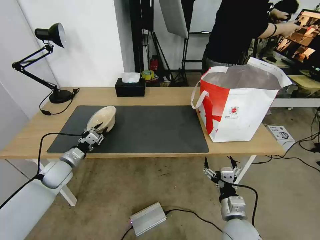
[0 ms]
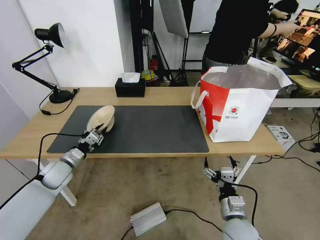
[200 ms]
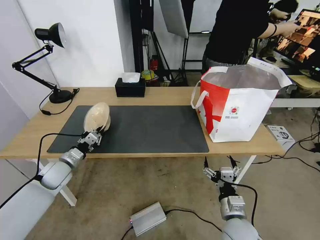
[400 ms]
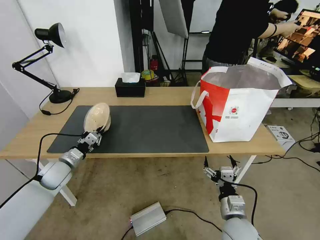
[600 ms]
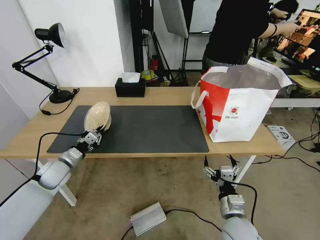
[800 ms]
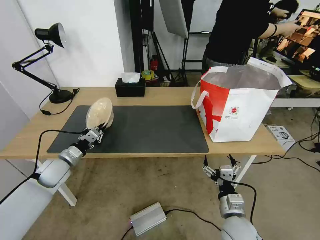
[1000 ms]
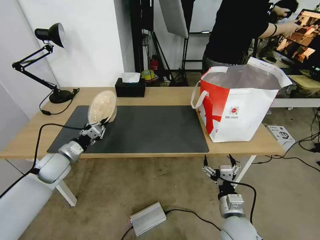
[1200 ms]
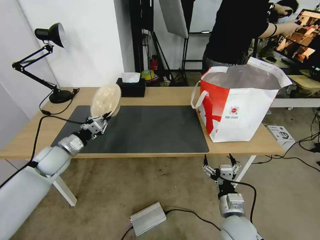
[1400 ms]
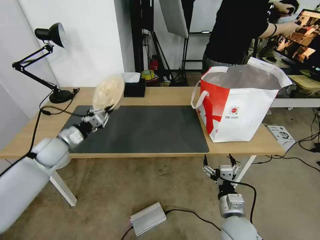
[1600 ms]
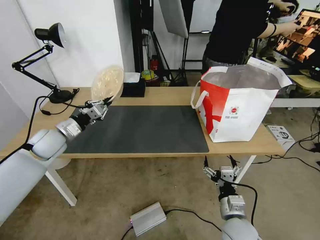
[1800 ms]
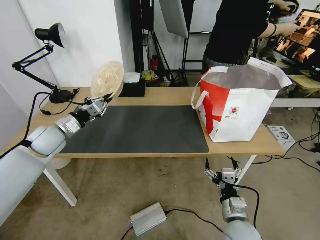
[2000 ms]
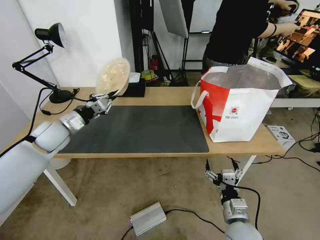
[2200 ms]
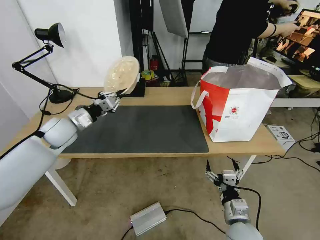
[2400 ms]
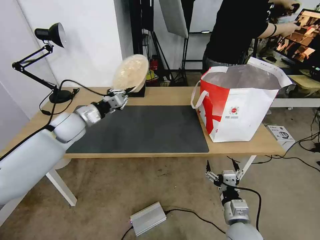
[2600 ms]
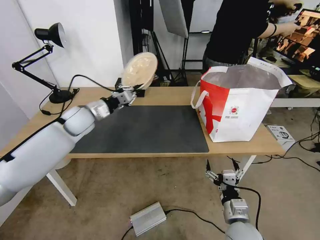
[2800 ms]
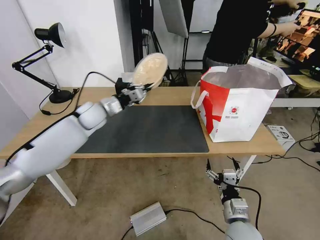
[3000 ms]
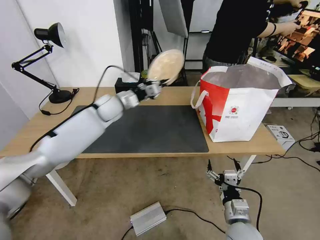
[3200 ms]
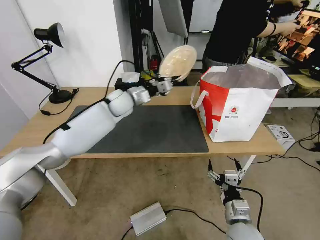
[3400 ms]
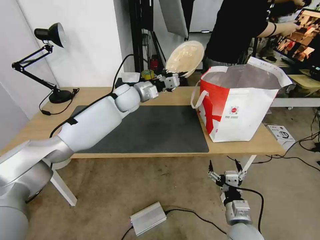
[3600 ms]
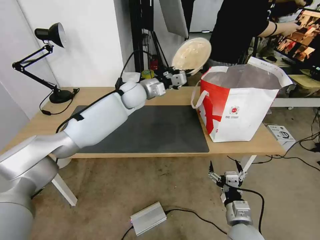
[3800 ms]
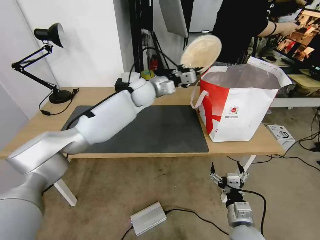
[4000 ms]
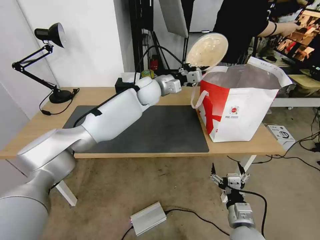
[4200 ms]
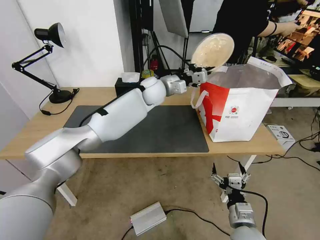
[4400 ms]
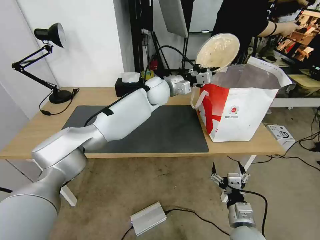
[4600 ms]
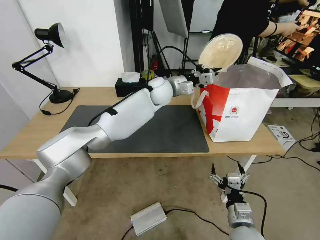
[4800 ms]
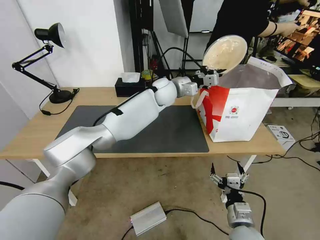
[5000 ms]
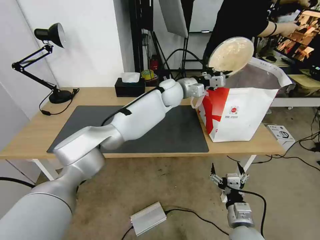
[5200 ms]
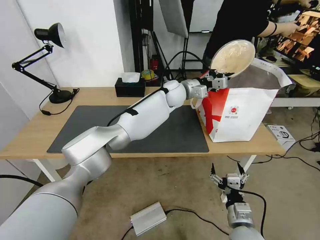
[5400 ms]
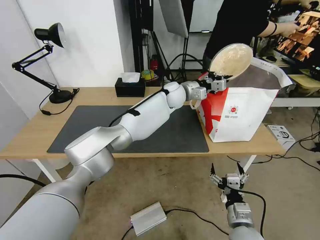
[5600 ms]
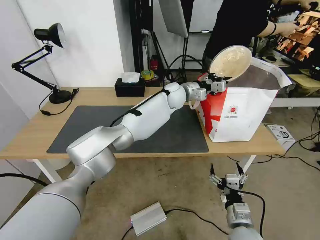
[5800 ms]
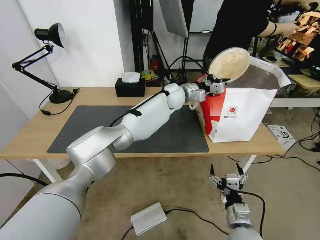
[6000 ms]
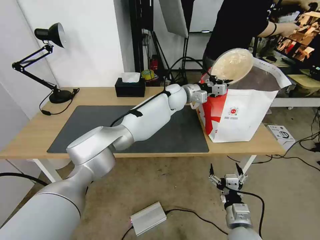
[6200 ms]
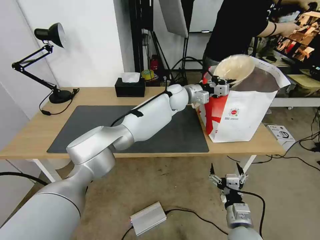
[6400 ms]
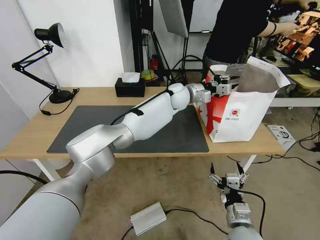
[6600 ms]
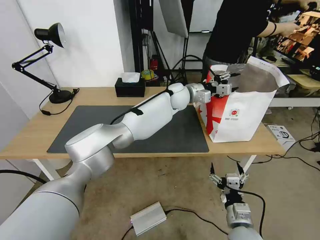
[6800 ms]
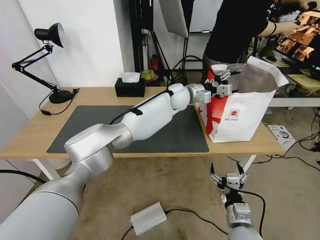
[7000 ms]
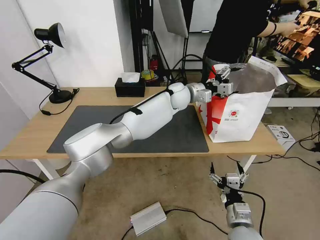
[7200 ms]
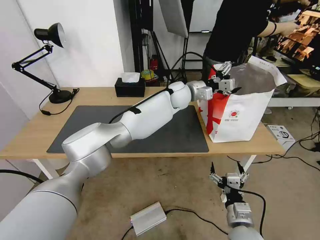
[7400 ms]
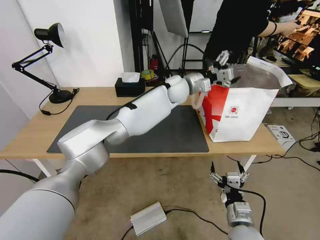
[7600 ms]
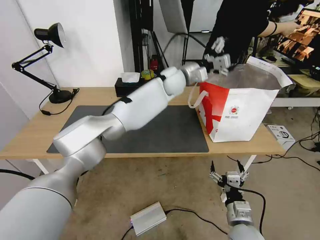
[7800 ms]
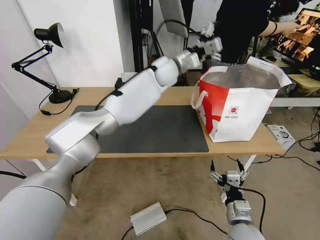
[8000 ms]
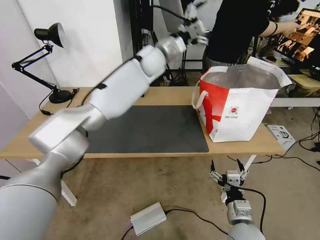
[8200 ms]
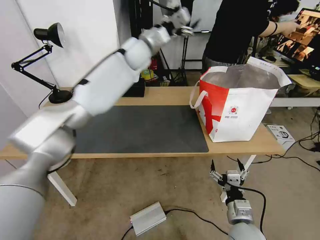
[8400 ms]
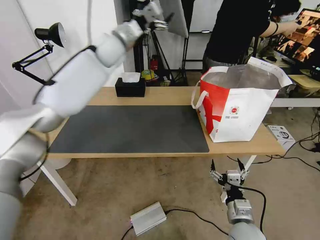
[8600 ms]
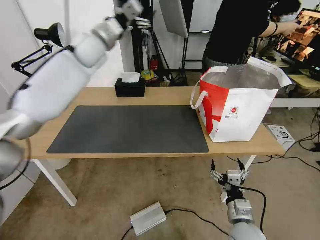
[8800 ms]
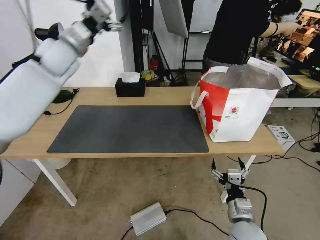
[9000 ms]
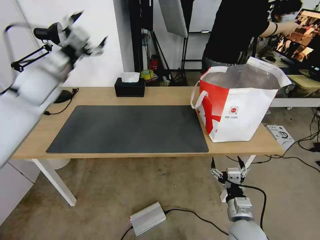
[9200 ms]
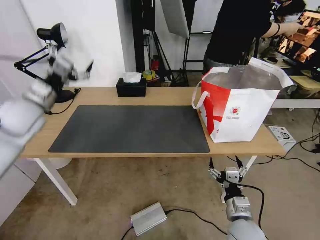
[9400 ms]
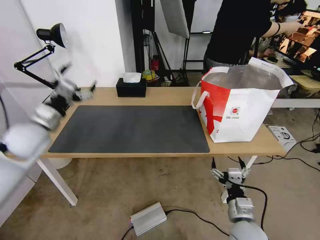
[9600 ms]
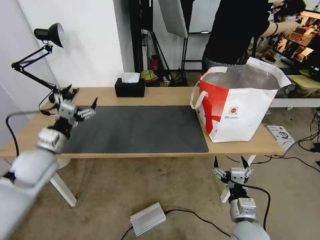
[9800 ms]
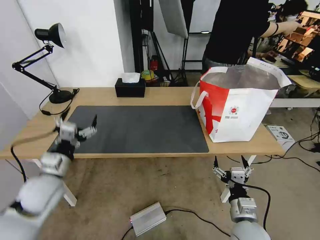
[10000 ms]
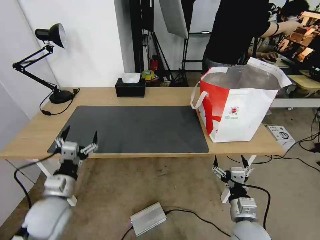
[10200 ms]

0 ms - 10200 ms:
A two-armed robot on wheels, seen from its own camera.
Task of the whole recording: Pick up the trash from the table and place it into the takeout bag.
0 ms - 1400 ms: The left gripper shifts about 5 cm upward.
1400 ms - 3000 ms: The left gripper travels forward, to the right and upward by some 20 cm.
3000 ms - 4400 ms: The left gripper travels to the right by about 20 cm.
4400 ms - 5800 ms: The left gripper shifts approximately 10 cm to the right.
5800 ms - 7200 ms: The left gripper opens up.
7200 ms - 8800 ms: The left gripper travels to the left and upward by roughly 35 cm.
8800 ms - 10200 ms: The left gripper shifts approximately 50 cm backward and downward.

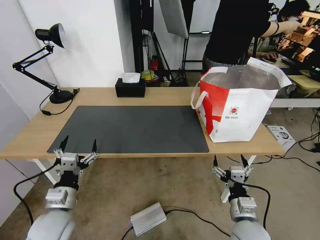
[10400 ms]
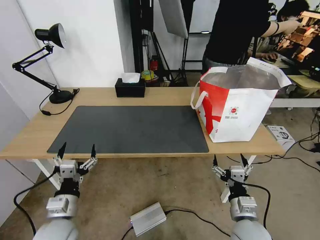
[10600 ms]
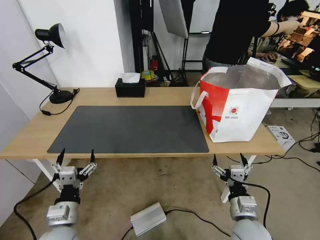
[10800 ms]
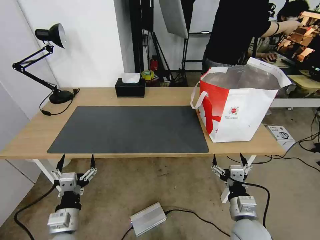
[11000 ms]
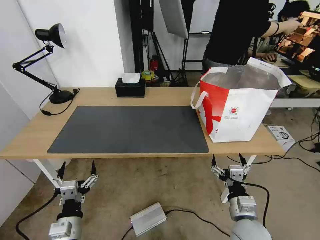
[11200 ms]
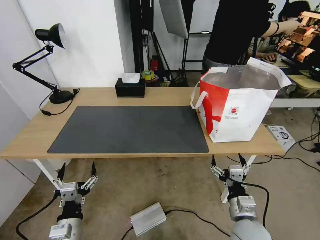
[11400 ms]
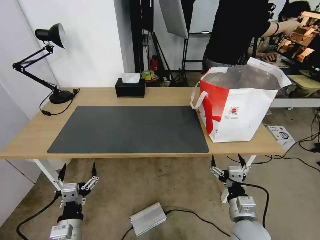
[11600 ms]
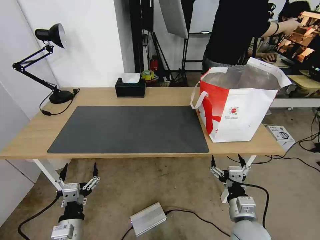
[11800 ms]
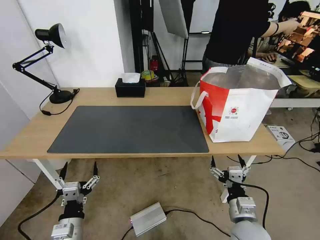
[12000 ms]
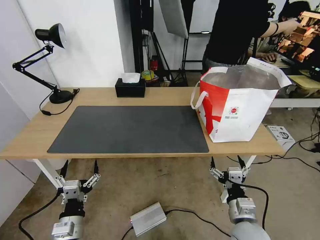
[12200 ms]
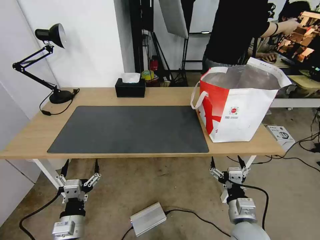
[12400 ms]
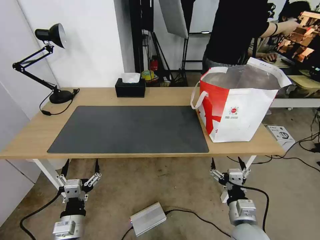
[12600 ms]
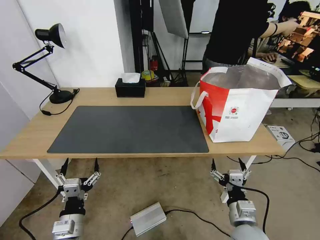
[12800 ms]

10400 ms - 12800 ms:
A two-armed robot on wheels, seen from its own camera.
Task of the whole recording: Pick up the trash from the table and place it into the takeout bag.
10400 ms - 11600 ms: The left gripper moves backward and downward, about 10 cm.
11600 ms - 12800 ms: The two grippers keep their place.

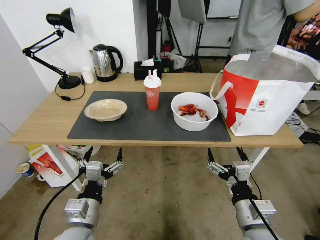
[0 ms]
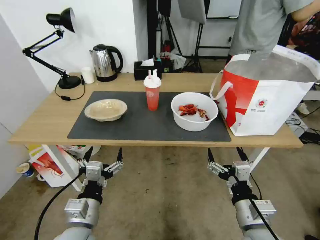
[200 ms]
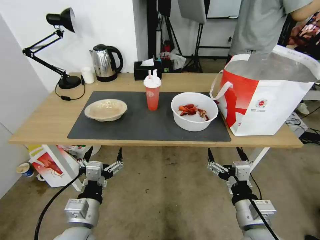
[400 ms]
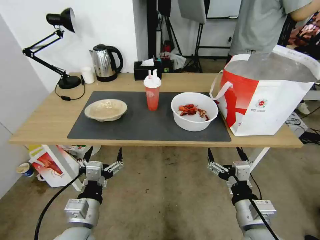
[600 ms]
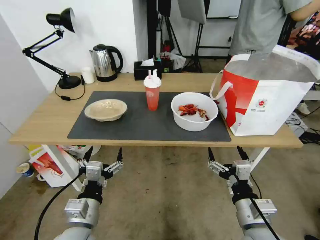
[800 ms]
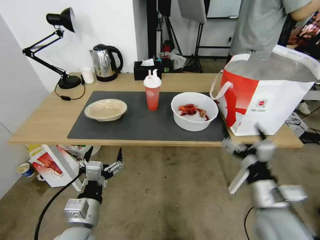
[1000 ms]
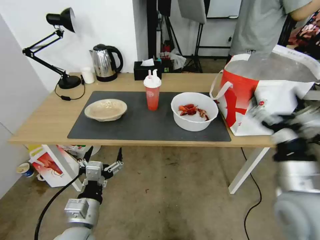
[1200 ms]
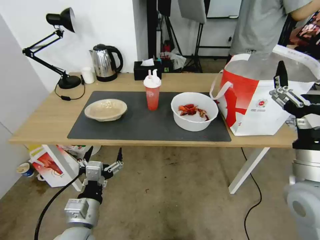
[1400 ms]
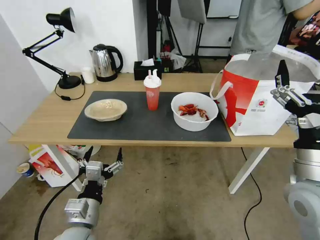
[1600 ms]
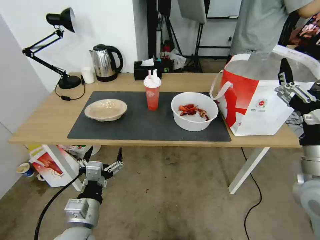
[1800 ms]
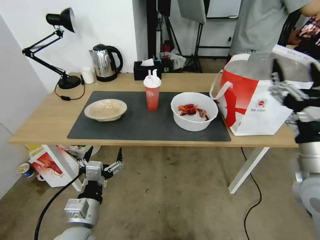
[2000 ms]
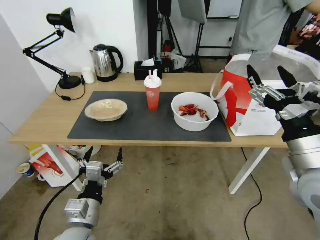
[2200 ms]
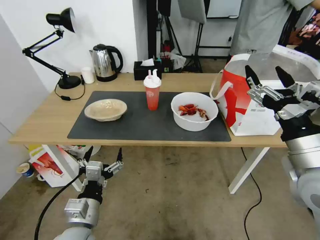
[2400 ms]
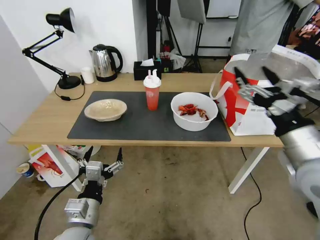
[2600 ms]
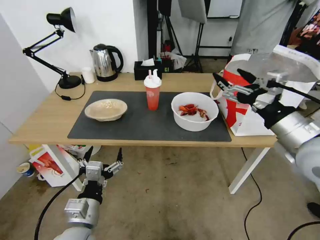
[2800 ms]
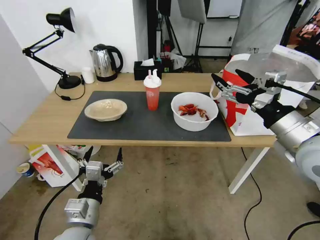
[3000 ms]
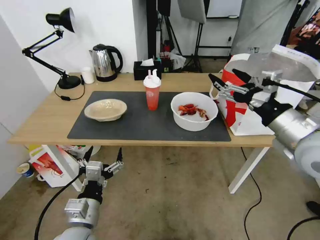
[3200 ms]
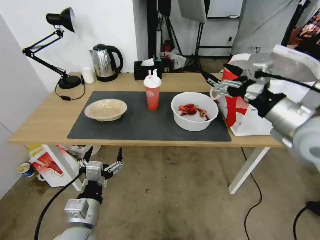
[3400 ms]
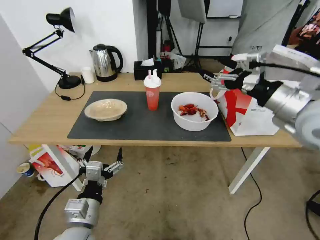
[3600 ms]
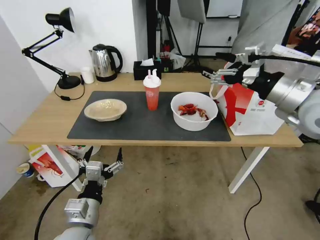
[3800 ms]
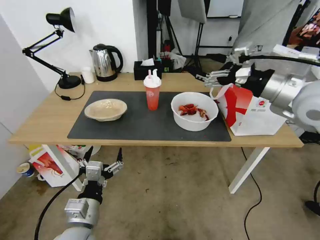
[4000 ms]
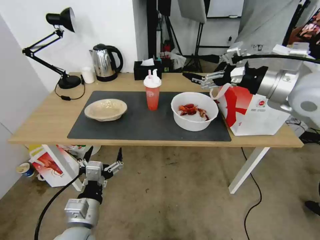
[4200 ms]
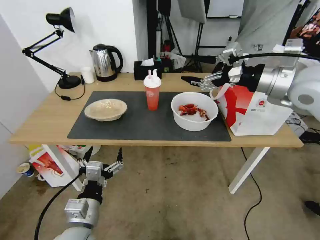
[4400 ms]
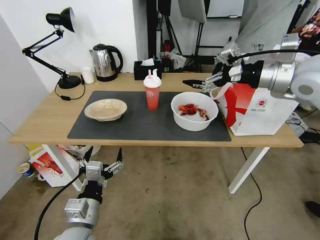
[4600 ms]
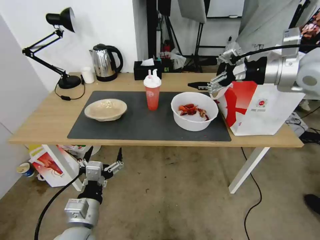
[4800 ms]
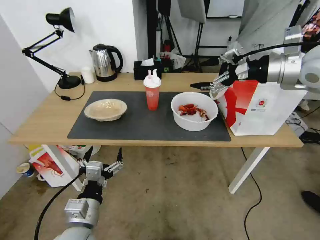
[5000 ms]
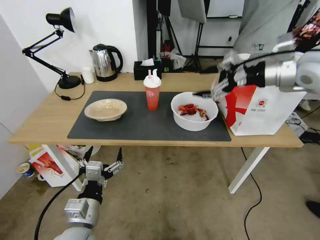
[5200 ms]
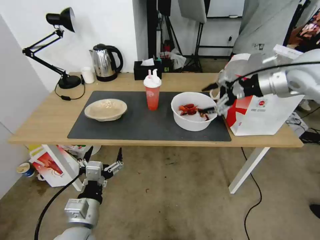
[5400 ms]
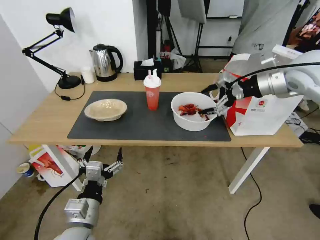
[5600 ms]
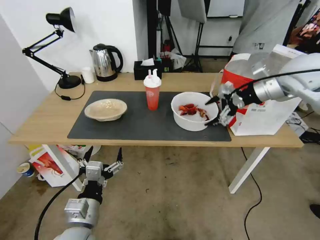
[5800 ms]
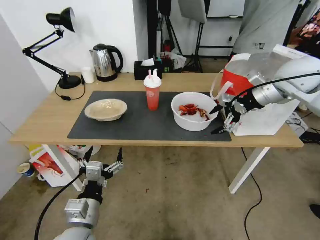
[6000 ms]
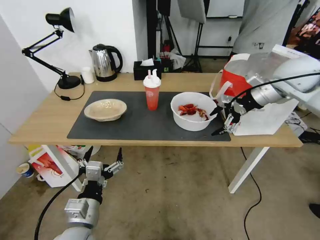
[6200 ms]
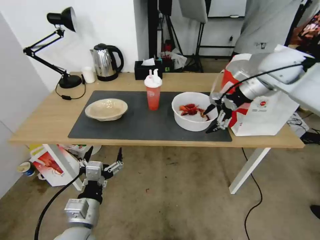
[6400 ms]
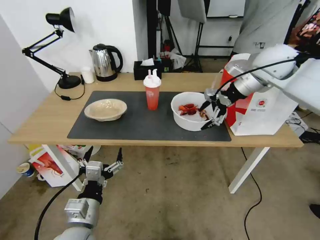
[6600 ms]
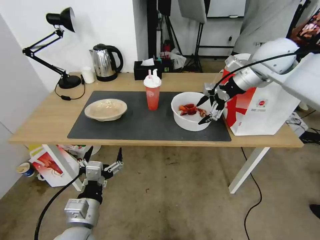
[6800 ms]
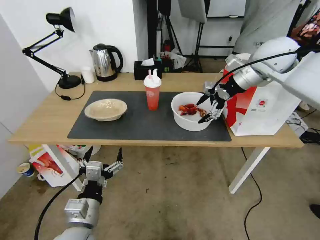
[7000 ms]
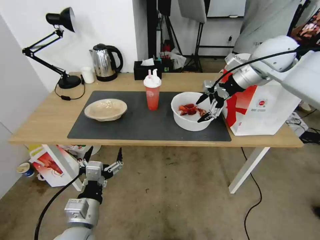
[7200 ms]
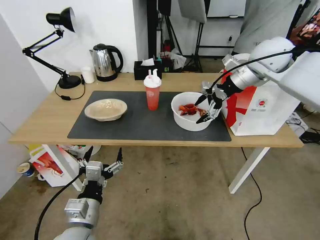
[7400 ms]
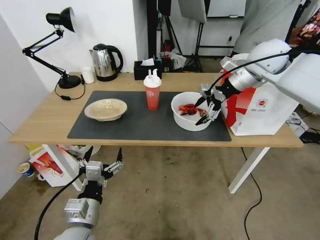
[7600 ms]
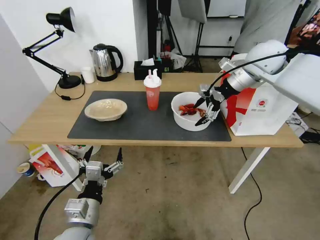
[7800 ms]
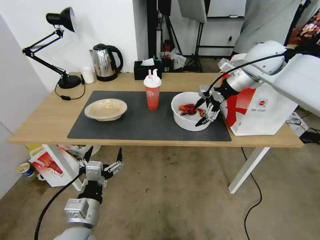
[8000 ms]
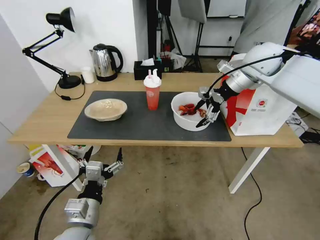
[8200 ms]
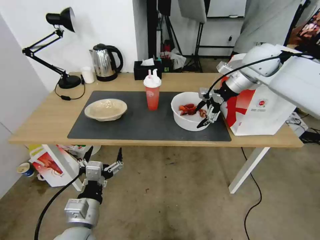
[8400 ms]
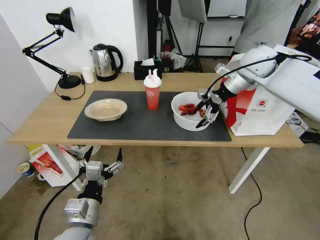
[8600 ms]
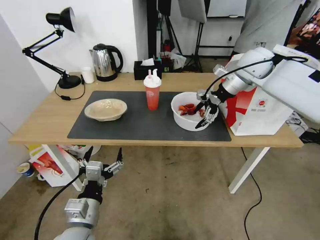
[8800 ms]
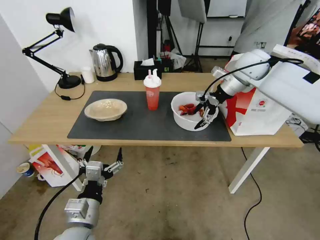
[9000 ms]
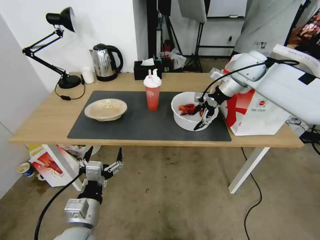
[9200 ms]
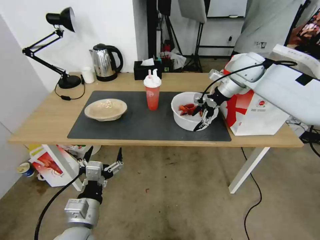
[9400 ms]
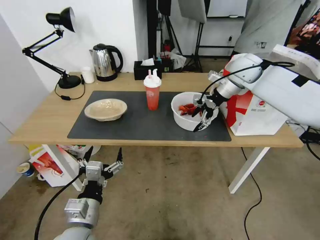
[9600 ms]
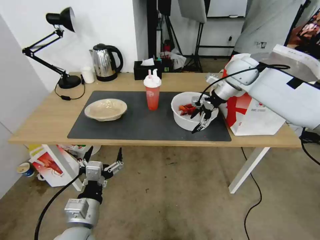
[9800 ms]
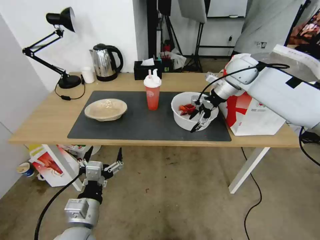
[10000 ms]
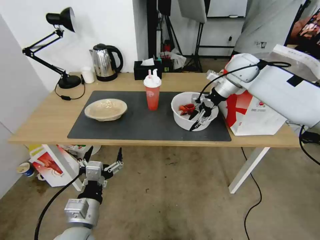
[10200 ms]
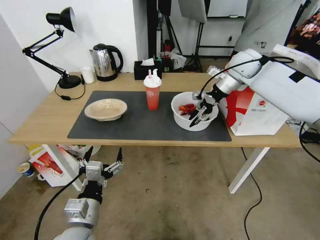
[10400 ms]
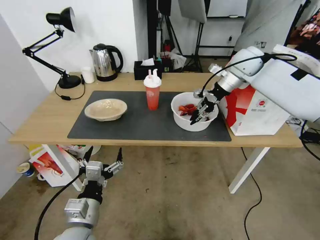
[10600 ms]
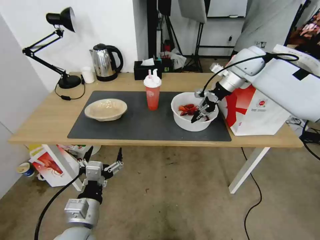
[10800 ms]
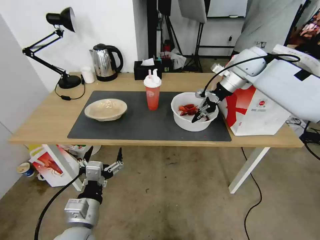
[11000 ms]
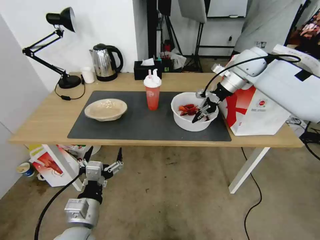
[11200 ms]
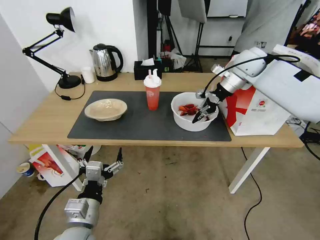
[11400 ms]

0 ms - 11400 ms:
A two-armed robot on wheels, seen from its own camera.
Task of the whole recording: Pick up the trash from the table and place it into the takeout bag.
1400 ms - 2800 ms: The right gripper travels forward and upward by about 10 cm.
2800 ms - 4200 ms: The right gripper moves forward and upward, approximately 15 cm.
4200 ms - 5600 ms: The right gripper heads forward, covering approximately 10 cm.
5600 ms - 7200 ms: The right gripper travels forward by roughly 10 cm.
7200 ms - 8600 ms: The grippers stay close to where they were, moving slightly.
8600 ms - 10000 ms: The right gripper moves roughly 5 cm.
10000 ms - 11400 ms: The right gripper closes.
